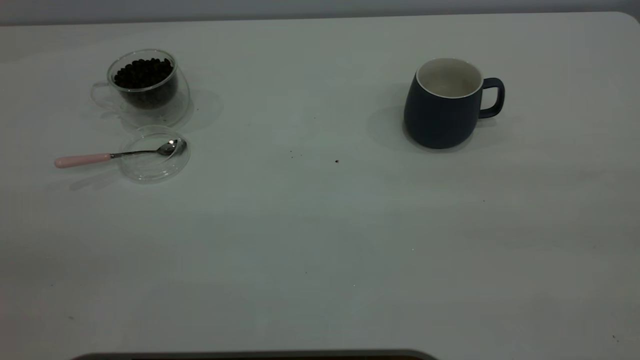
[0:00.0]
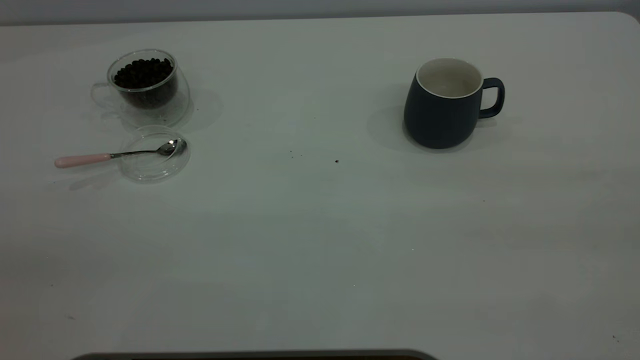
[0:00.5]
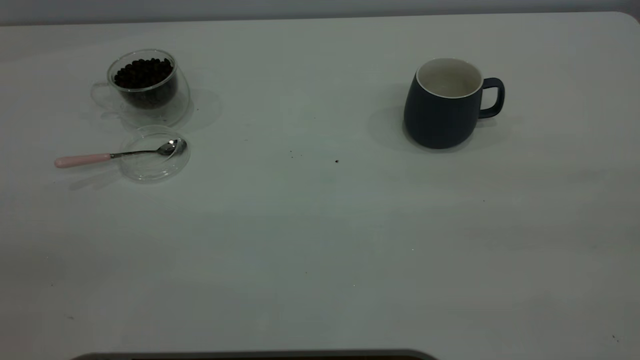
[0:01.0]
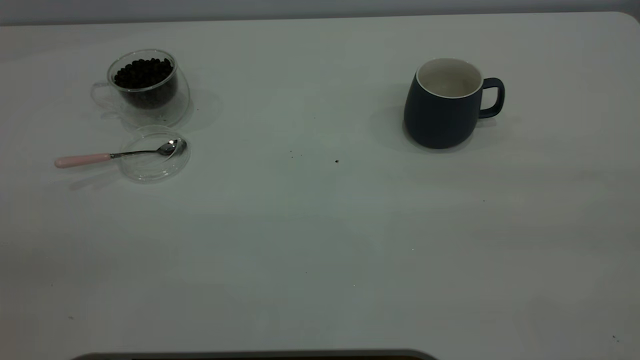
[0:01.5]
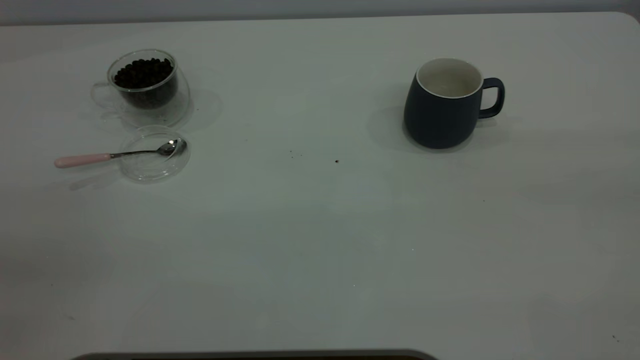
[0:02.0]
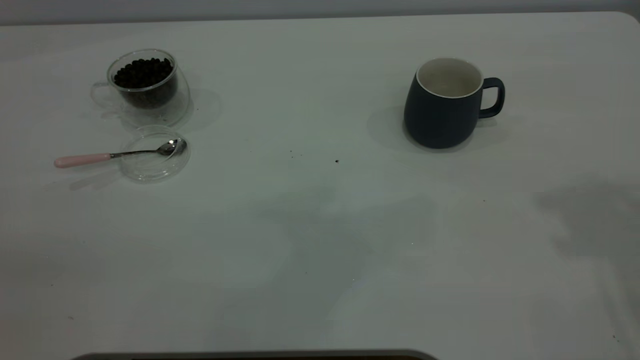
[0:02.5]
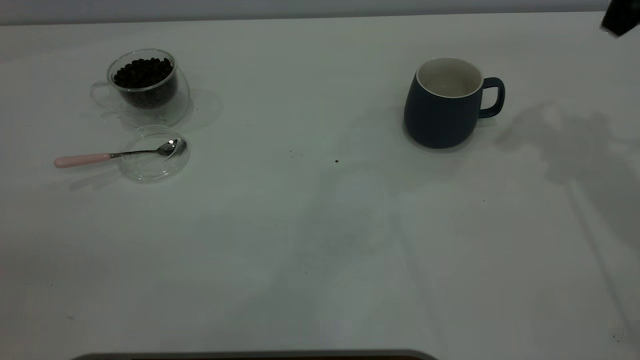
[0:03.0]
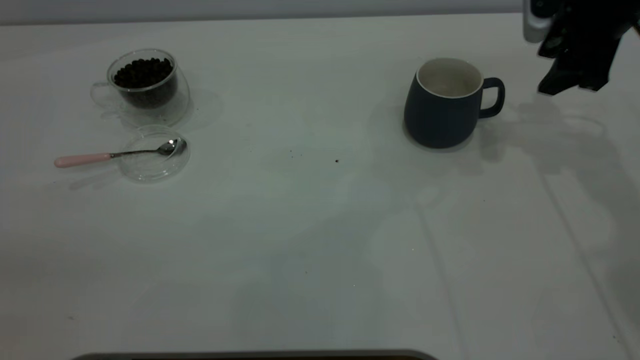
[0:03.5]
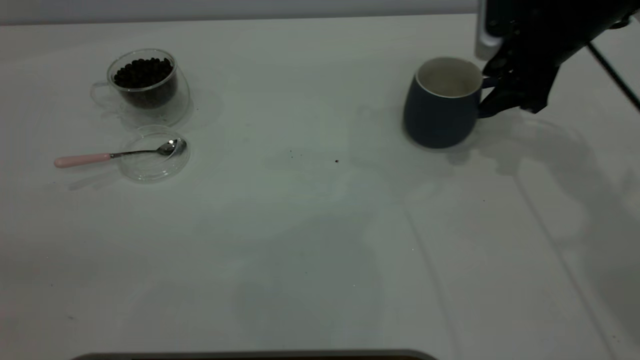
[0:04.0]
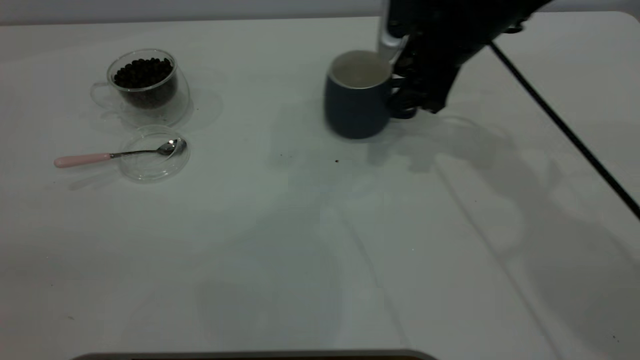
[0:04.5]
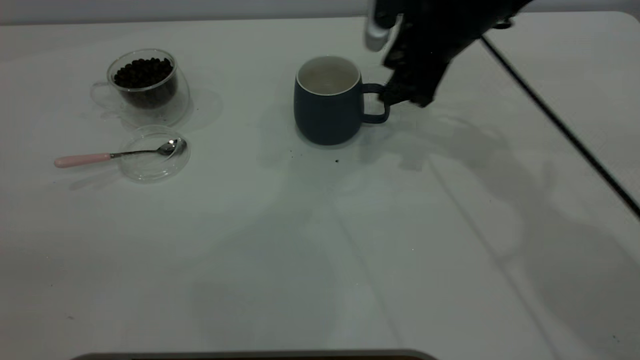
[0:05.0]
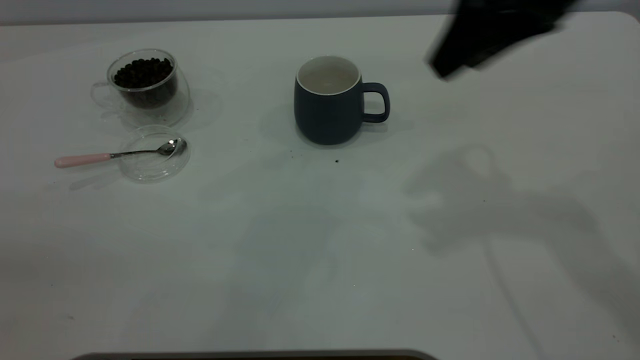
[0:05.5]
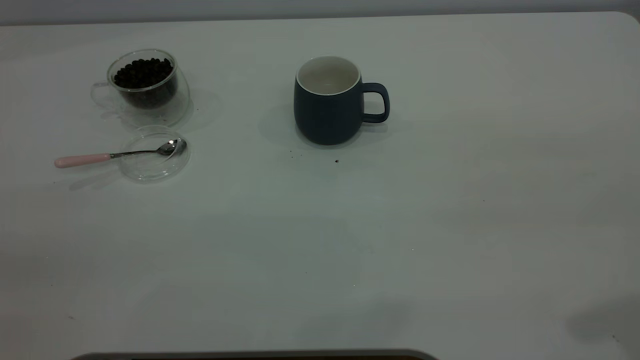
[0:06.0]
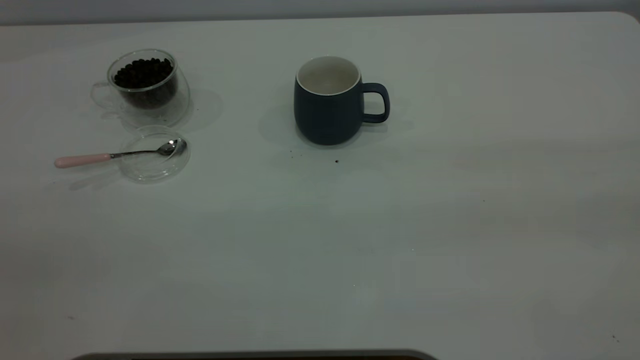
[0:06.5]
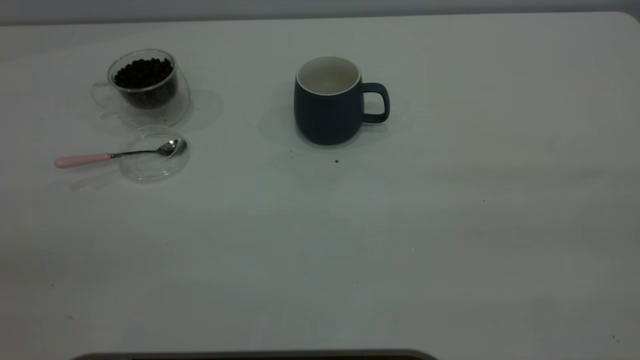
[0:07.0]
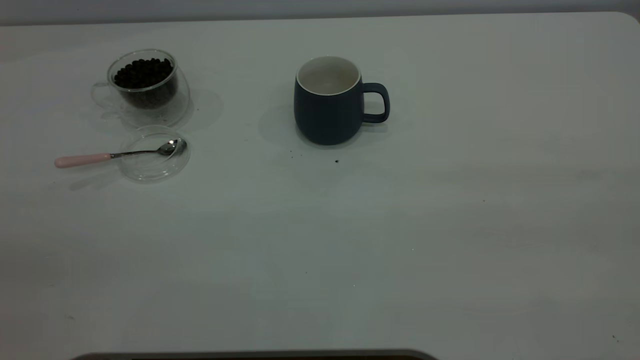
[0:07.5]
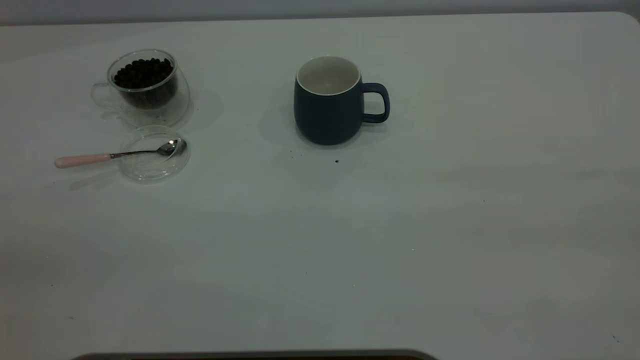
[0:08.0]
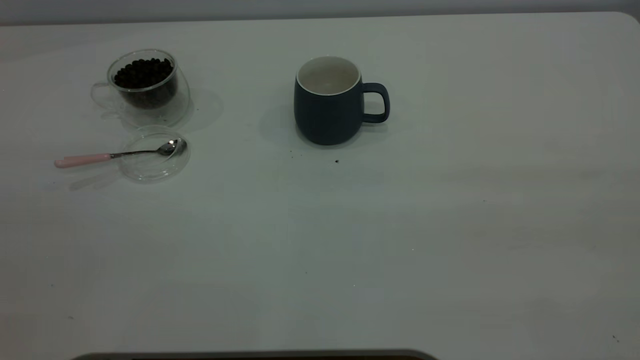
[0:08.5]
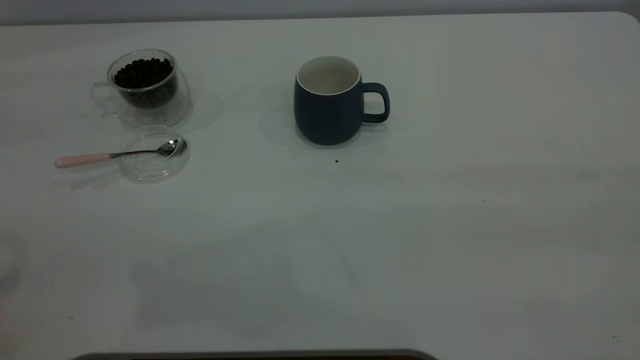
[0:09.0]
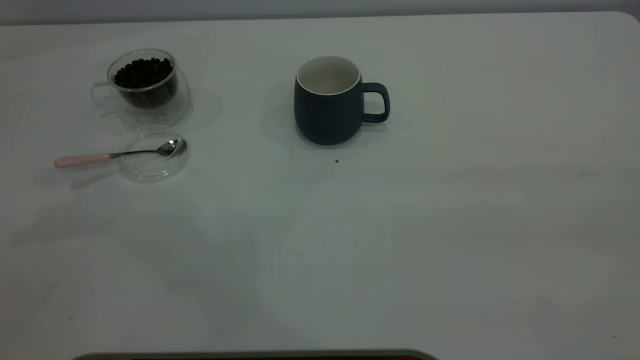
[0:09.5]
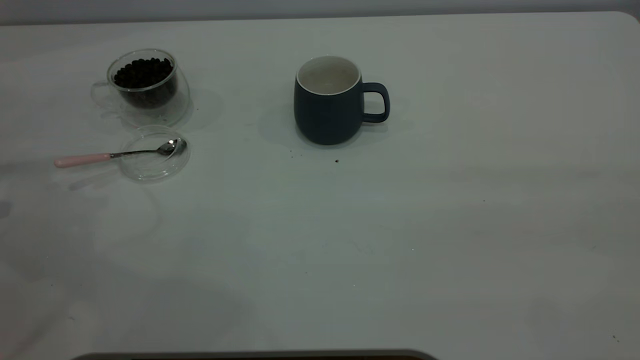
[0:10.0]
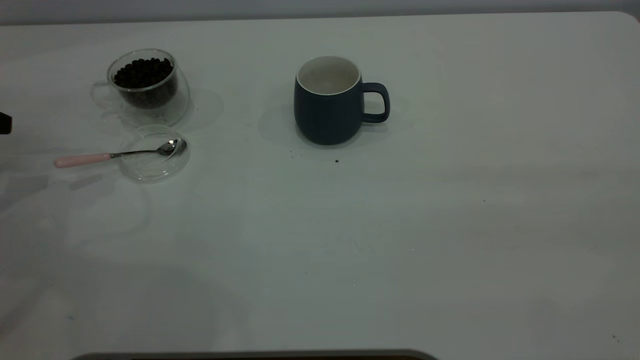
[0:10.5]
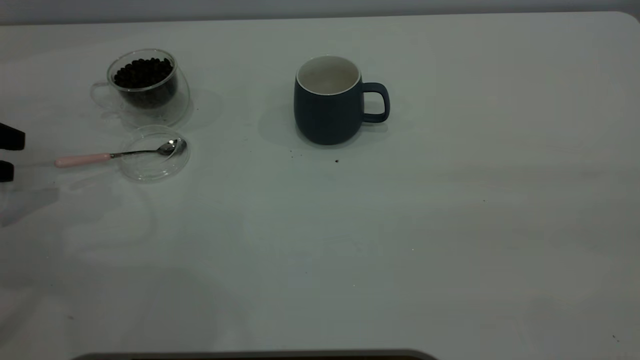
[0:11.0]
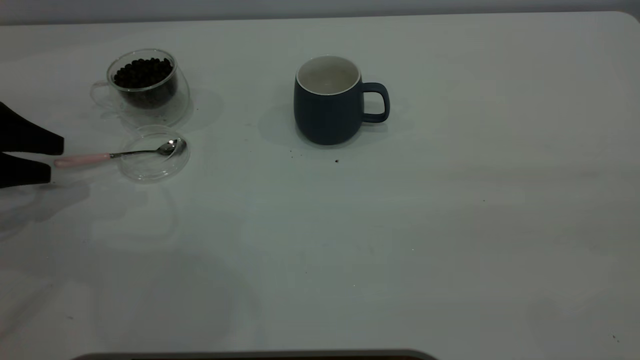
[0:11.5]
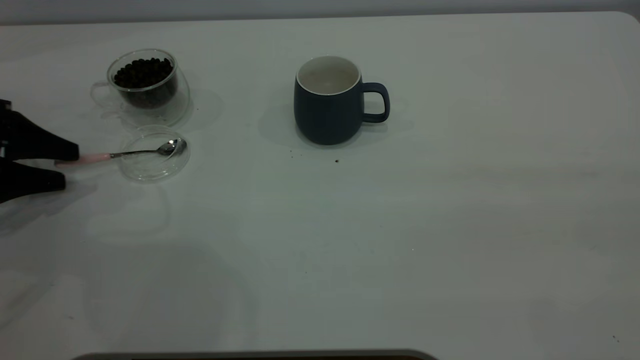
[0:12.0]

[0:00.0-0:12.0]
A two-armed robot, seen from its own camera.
Task of the whole recording: the right gripper place the grey cup in the center of the table, the left gripper take the pink spoon from the cup lid and scoop out the coffee beans from the coffee cup and put them into the grey cup, the left gripper put the spoon back into the cup lid.
Step, 0:00.0 to 0:05.0: Move the cup to the center of view.
0:02.0 to 0:04.0: The right gripper goes approximately 50 cm forward and downward.
0:04.0 to 0:06.0: The right gripper goes approximately 35 cm backward and upward.
0:10.0 to 0:12.0: The left gripper heads downward and to the right, covering approximately 10 cm.

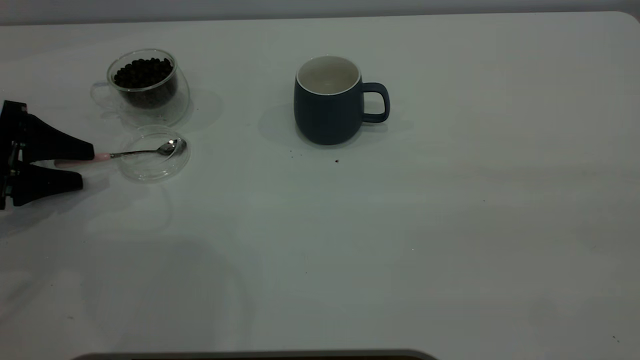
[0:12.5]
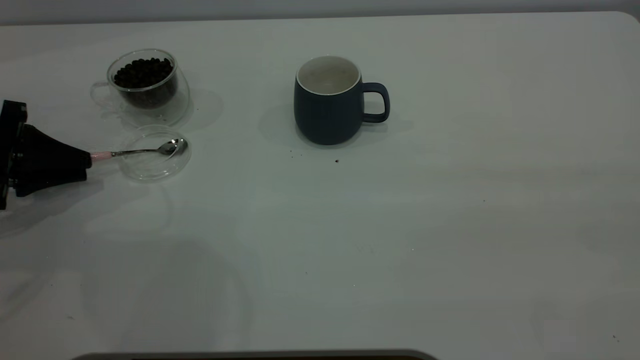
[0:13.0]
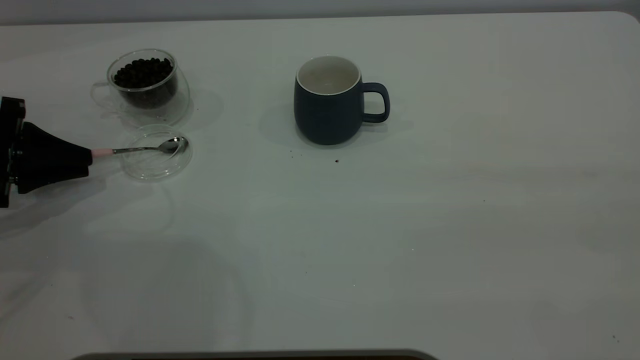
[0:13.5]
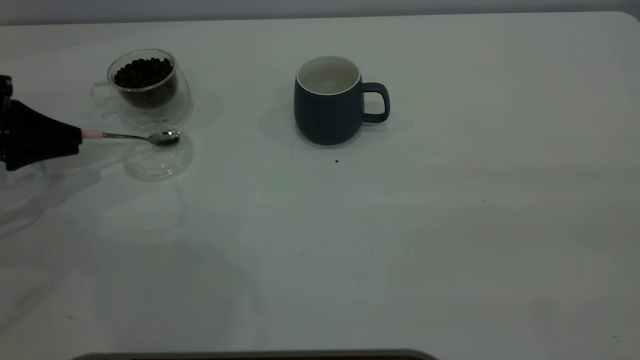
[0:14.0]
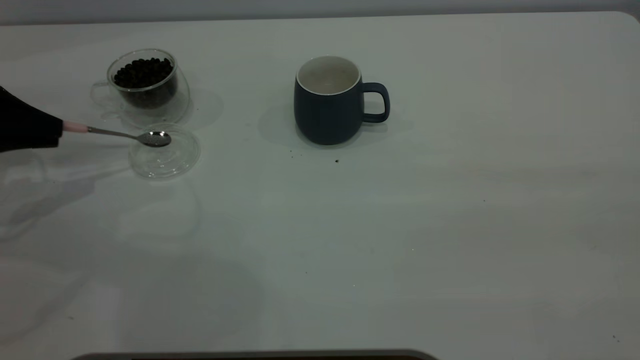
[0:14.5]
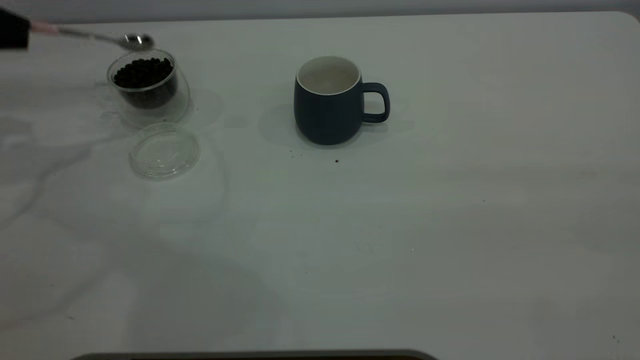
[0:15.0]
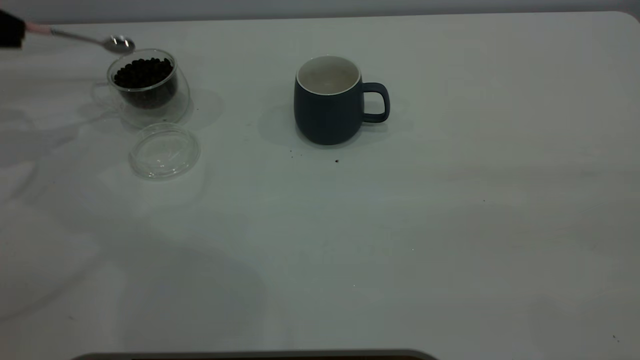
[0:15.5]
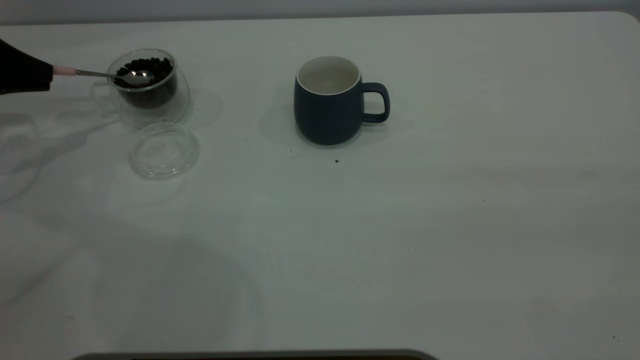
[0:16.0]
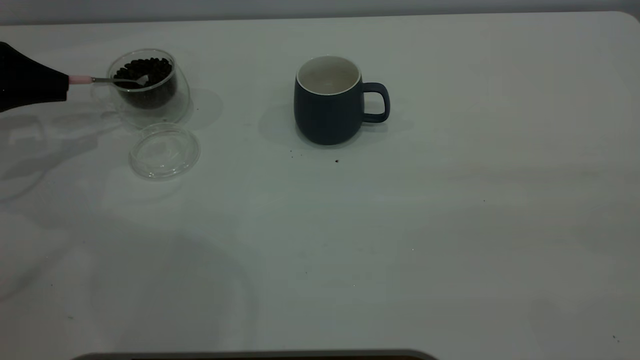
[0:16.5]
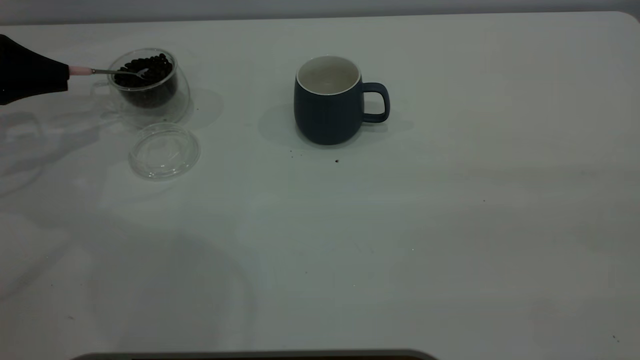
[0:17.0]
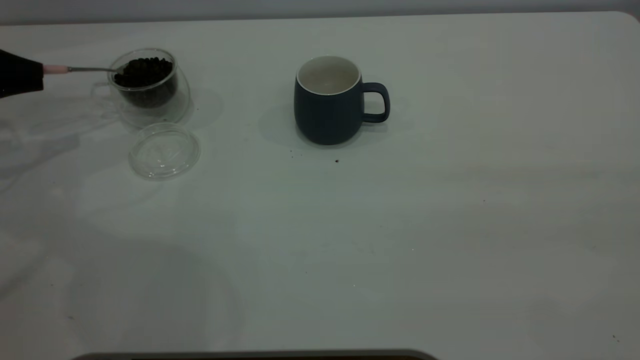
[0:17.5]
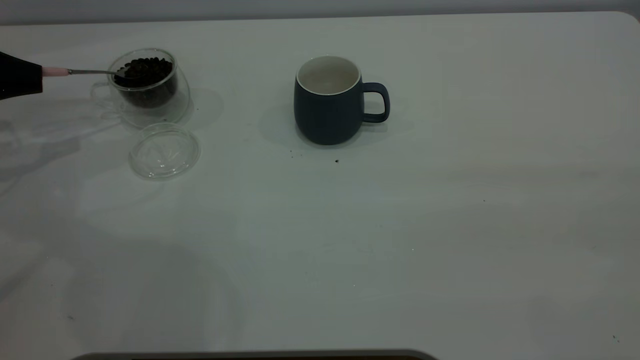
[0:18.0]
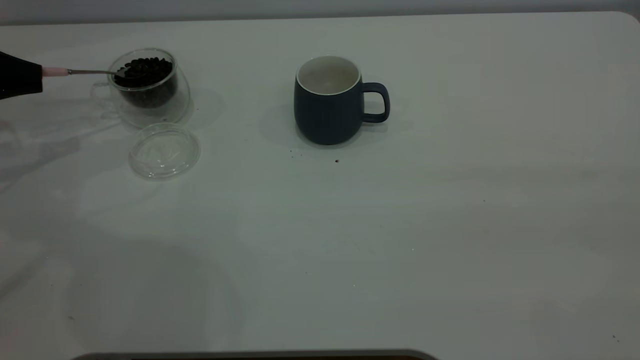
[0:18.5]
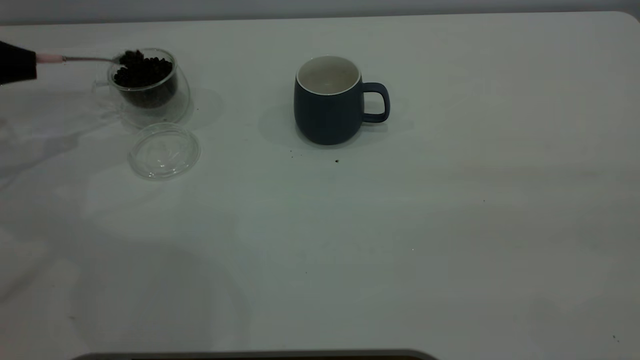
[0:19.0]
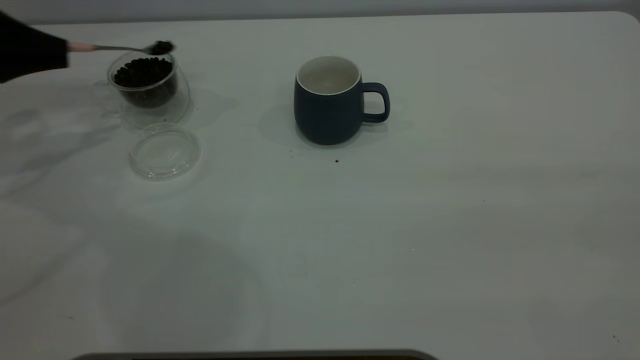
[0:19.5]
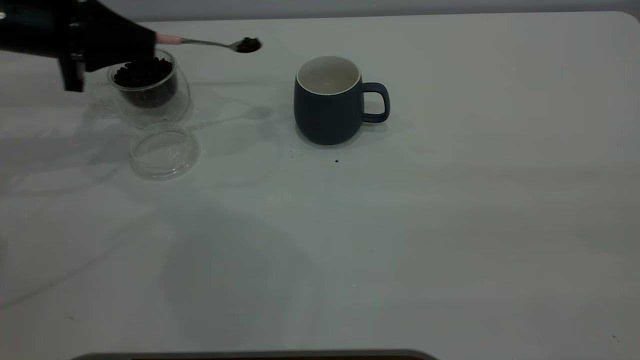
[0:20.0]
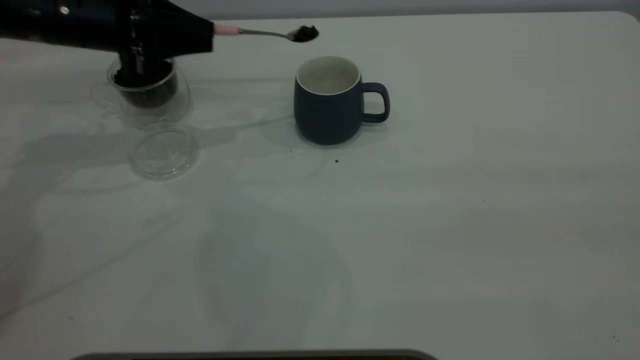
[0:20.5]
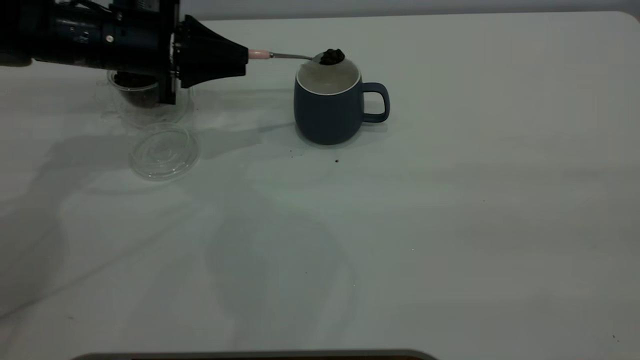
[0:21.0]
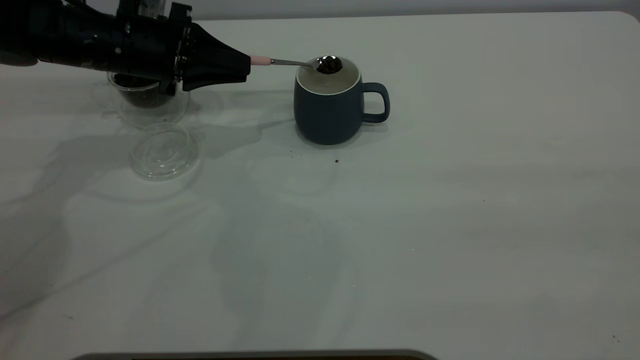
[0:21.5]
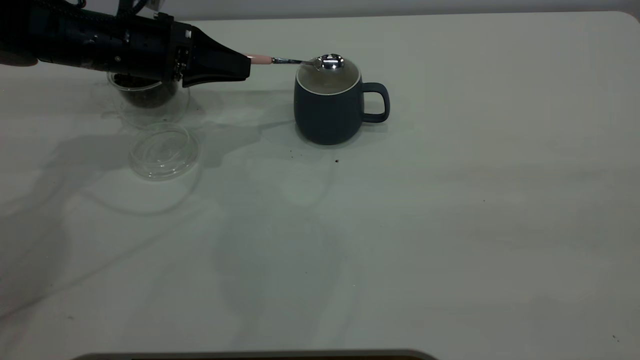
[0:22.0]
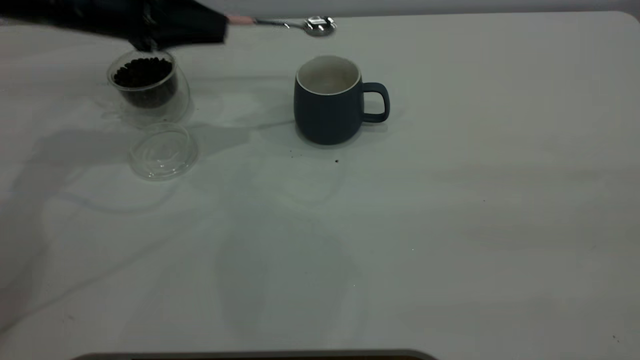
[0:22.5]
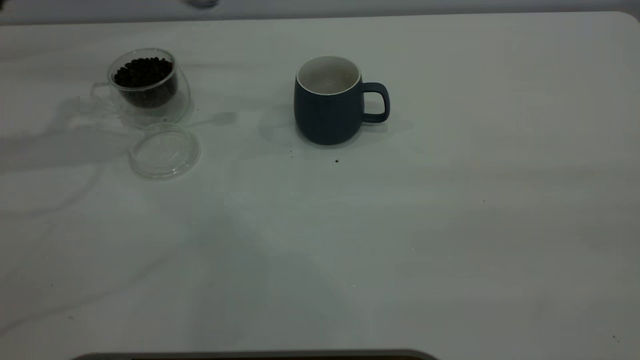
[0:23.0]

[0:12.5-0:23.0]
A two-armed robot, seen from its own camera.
Task of the whole recording: the right gripper place the grey cup in the center of the table, the left gripper take the pink spoon from the cup lid and scoop out the coffee beans from the coffee cup and put them into the grey cup, the left gripper put the spoon back into the cup lid.
Step, 0:12.5 to 0:14.5: Pick up the spoon.
Step, 0:15.0 to 0:22.0: Scoop a spoonful of beans into the cup.
0:12.5 to 0:14.5: The left gripper shifts about 5 cm upward, and closes up.
0:14.5 to 0:16.5: The left gripper moves forward, about 5 cm, and travels upward and back again, approximately 5 cm each way.
0:16.5 to 0:19.0: There are only small adjustments of the grippers.
0:19.0 to 0:21.0: The left gripper goes approximately 20 cm to the right.
0:21.0 to 0:23.0: The left gripper heads to the left and upward, covering some 20 cm.
